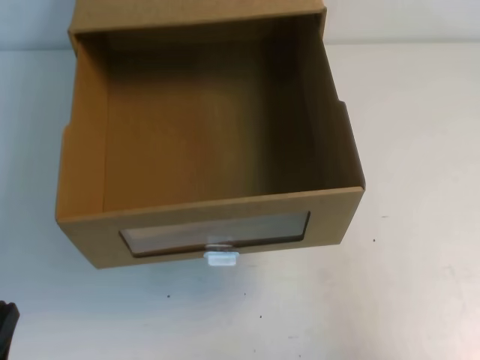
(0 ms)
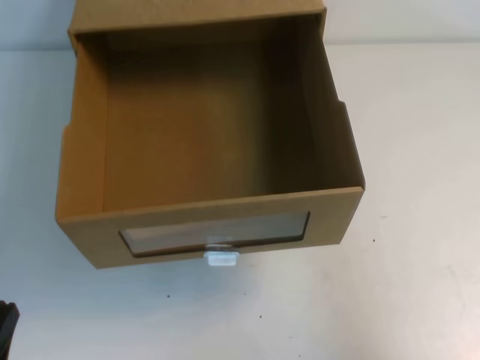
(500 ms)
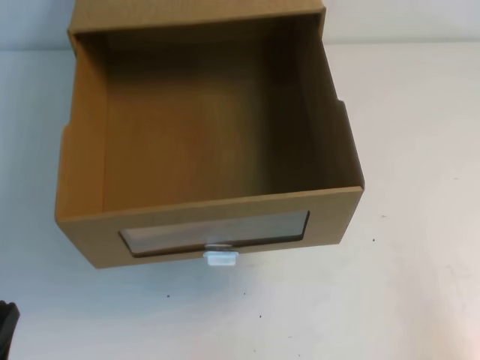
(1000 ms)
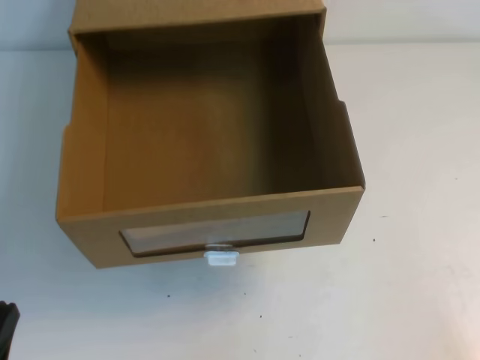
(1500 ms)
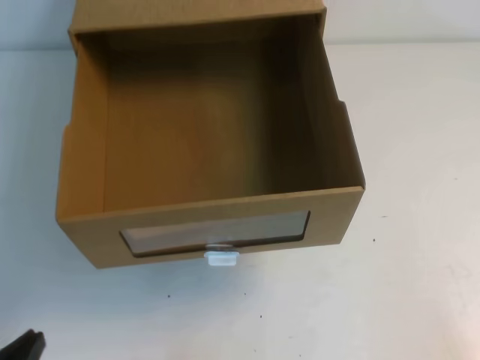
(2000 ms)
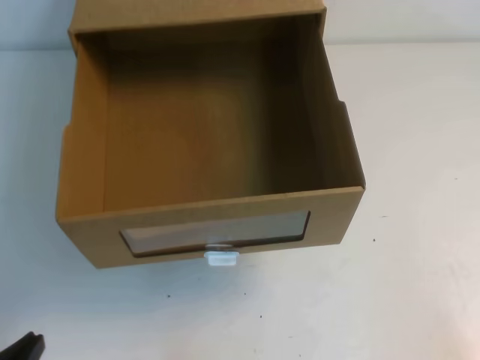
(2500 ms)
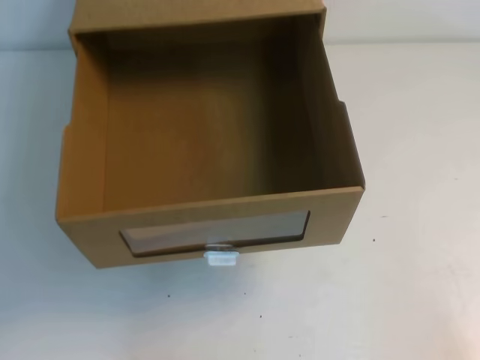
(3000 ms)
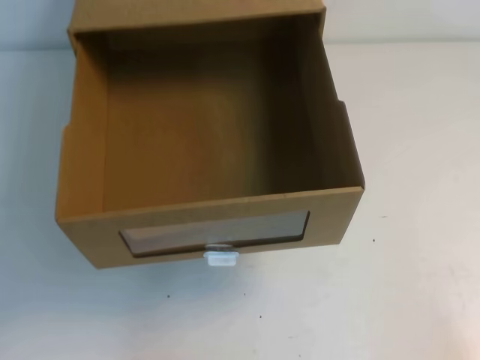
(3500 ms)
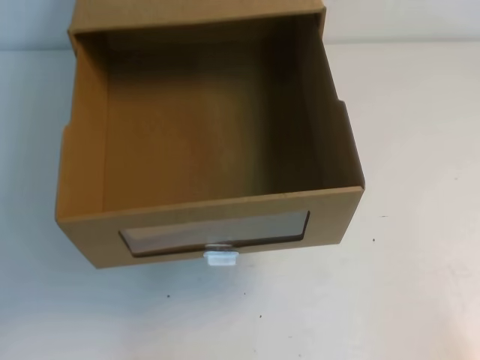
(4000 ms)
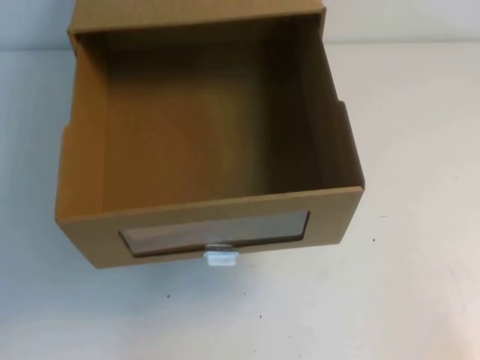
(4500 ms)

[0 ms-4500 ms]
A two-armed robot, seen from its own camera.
Task of the whole recording: open the shoebox on the table.
Step, 0 ms to 4500 ms: Open the shoe box.
0 ms to 2000 ms: The right gripper moves downward and backward, approximately 15 cm.
